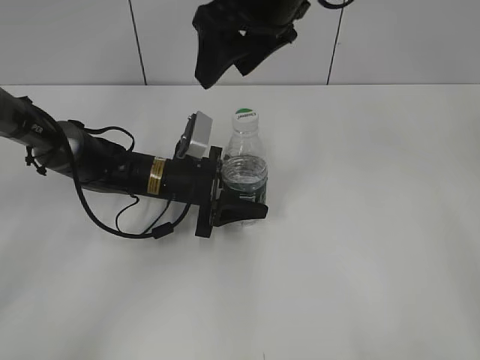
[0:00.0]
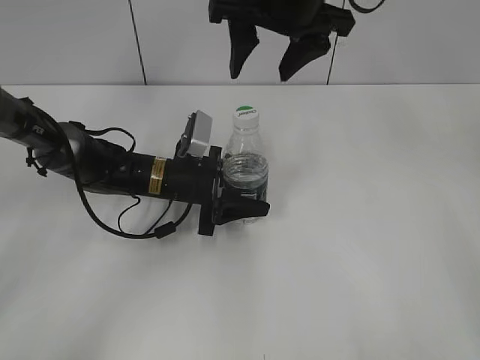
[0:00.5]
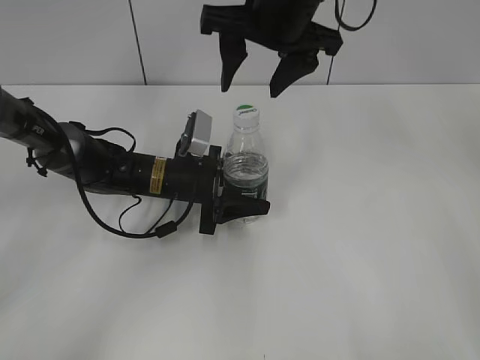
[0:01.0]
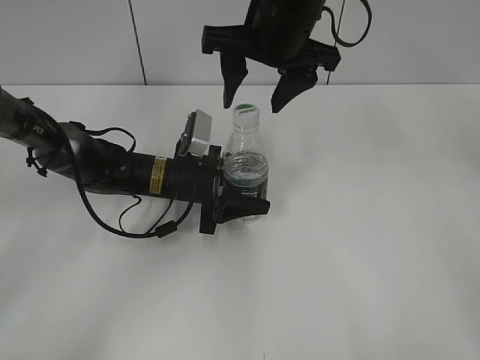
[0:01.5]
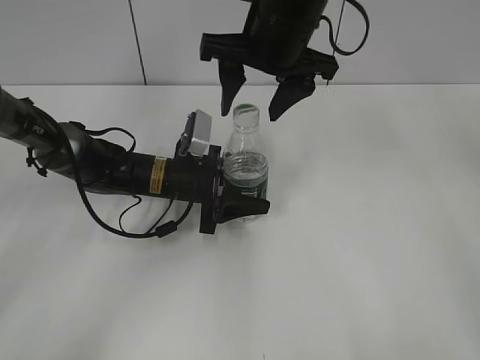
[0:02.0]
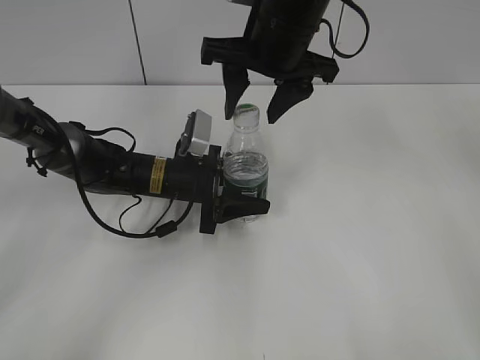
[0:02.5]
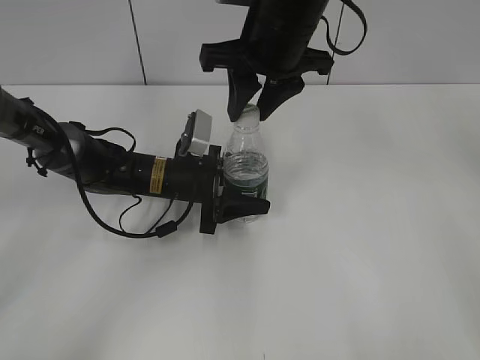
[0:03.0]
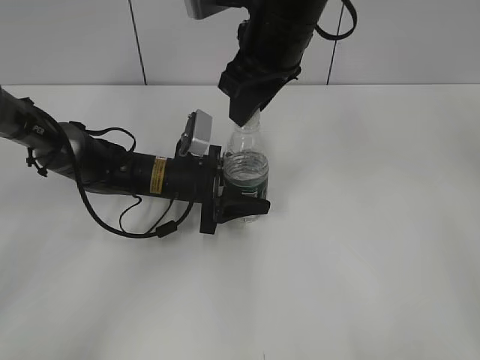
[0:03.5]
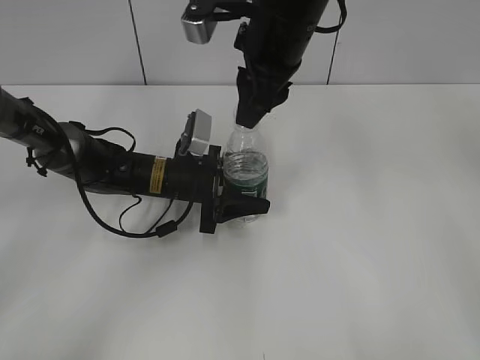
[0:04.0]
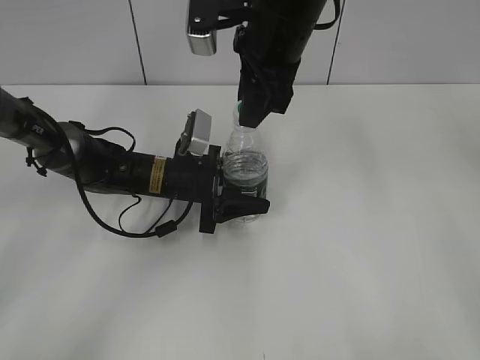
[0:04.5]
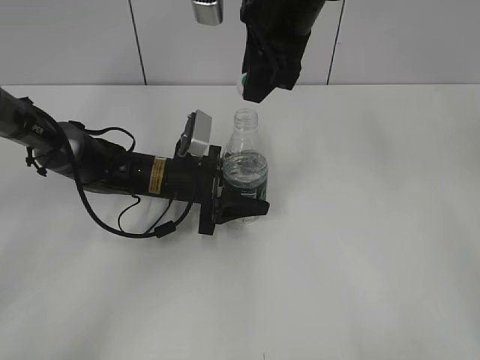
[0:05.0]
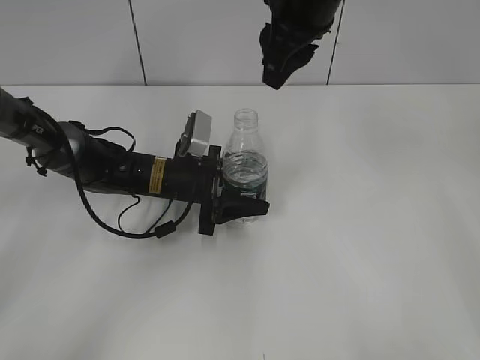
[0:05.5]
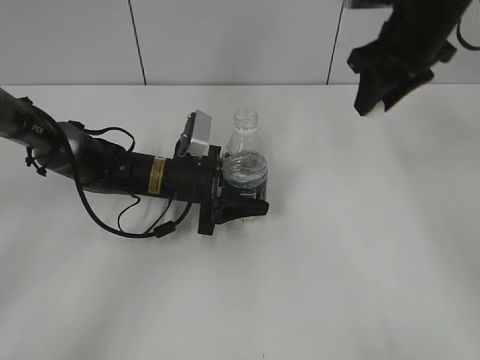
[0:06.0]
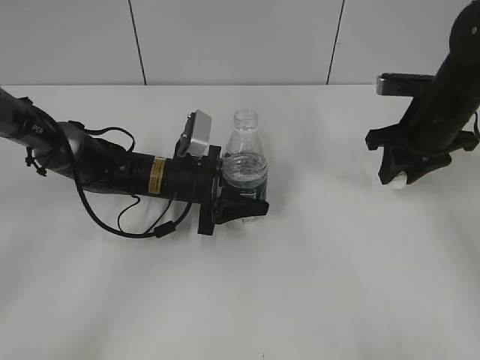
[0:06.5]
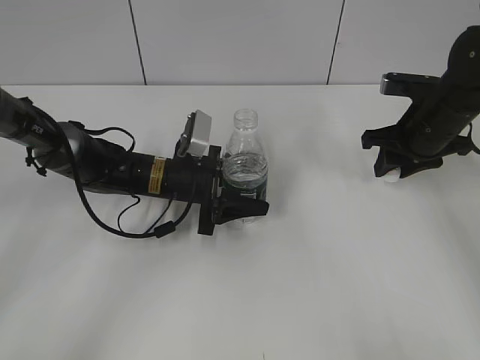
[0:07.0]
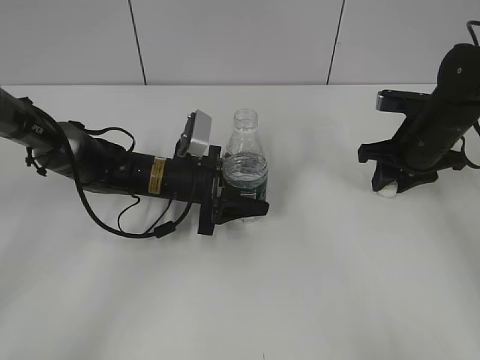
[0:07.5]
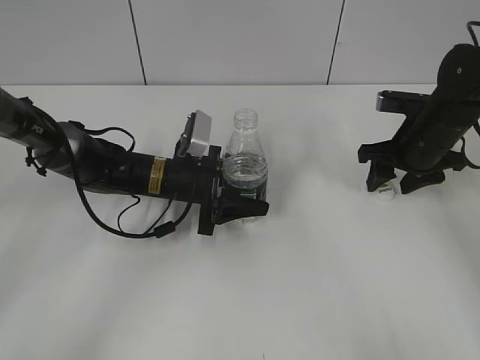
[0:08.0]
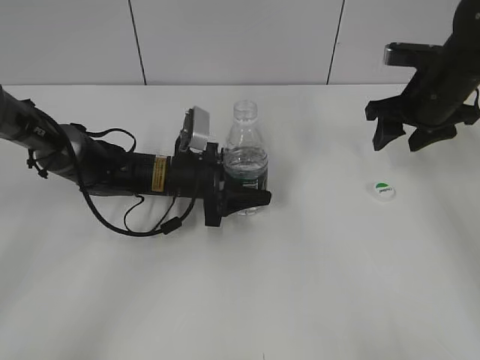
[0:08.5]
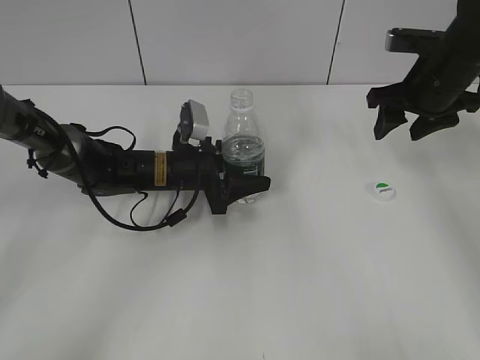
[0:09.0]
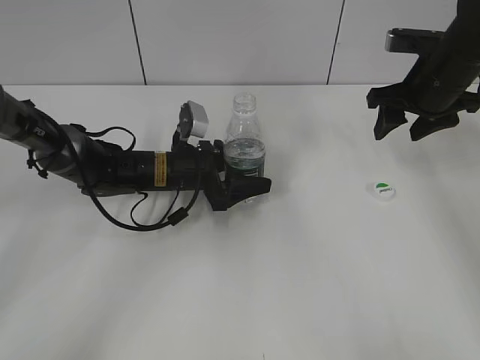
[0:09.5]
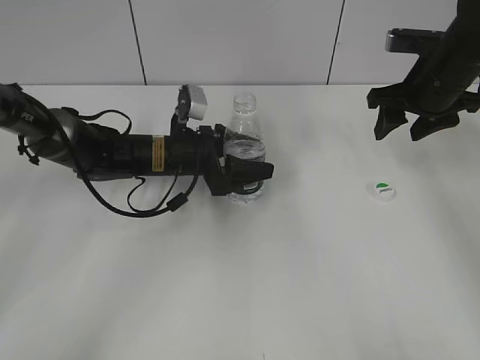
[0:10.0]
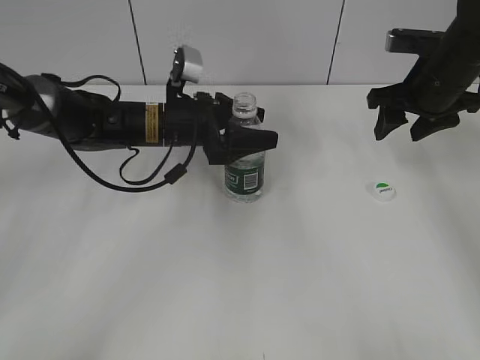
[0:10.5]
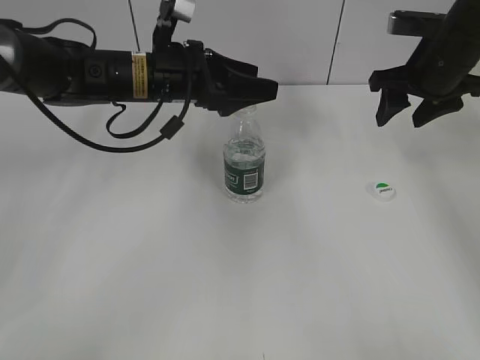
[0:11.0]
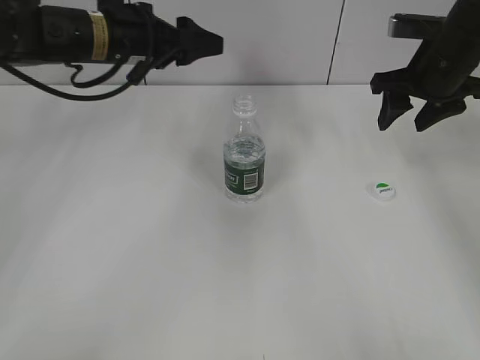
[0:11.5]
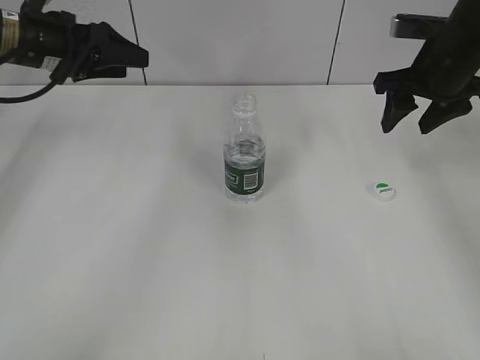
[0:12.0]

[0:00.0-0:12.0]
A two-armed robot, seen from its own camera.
Step, 0:00.0 to 0:04.5: Unscrew the bottle cap with the right gripper while holding the bottle with the left gripper.
Step, 0:05.0 to 0:08.0: Place the bottle cap on the table with the right gripper.
Step, 0:08.5 to 0:10.0: Place the bottle on the table with the left gripper.
0:02.0 to 0:04.0: The right gripper closes its fingers.
0:04.0 to 0:06.0: The right gripper is displaced to the right by roughly 15 cm.
0:06.0 to 0:08.0: The right gripper travels downward by approximately 15 cm, and opens.
0:08.0 to 0:10.0: The left gripper opens. Meanwhile the right gripper goes some 5 cm upward.
0:10.0 to 0:12.0: The left gripper shifts roughly 20 cm upward and to the left.

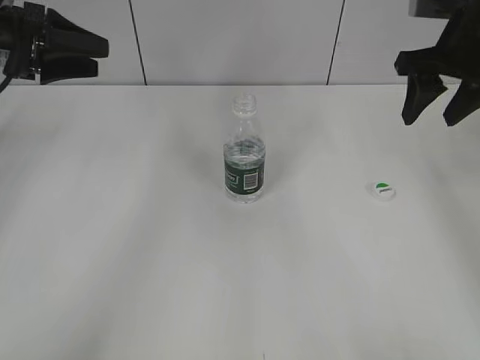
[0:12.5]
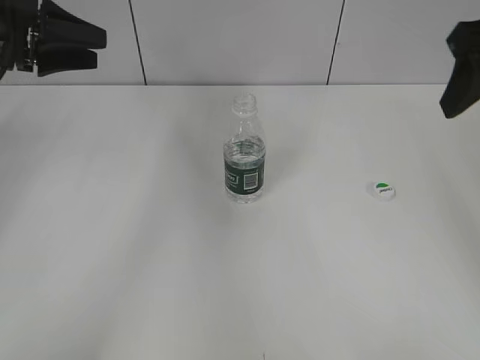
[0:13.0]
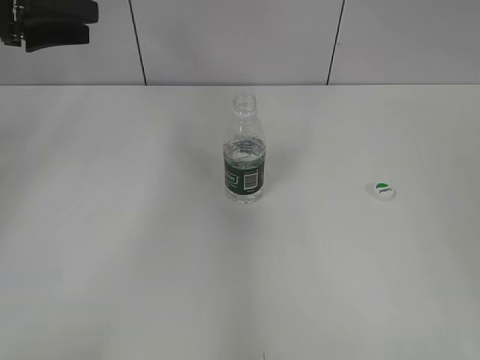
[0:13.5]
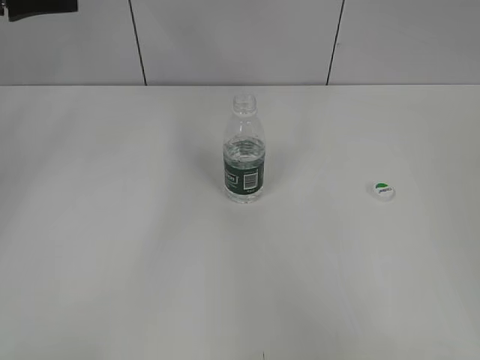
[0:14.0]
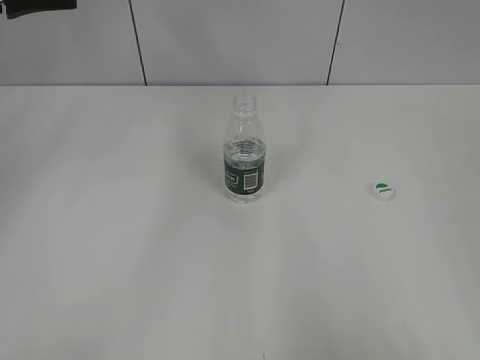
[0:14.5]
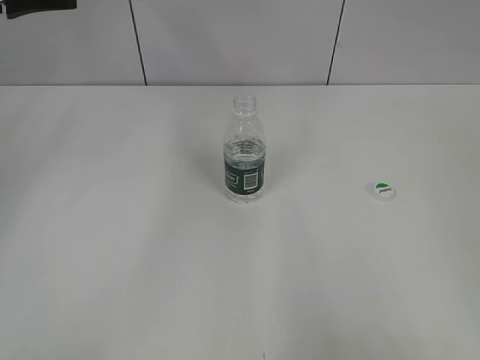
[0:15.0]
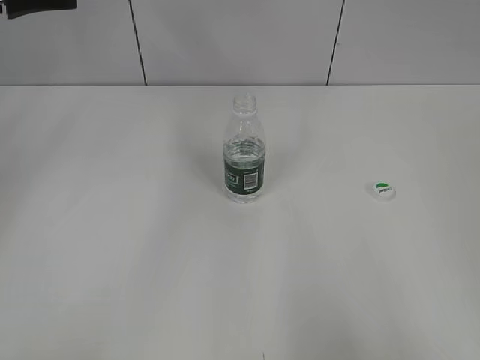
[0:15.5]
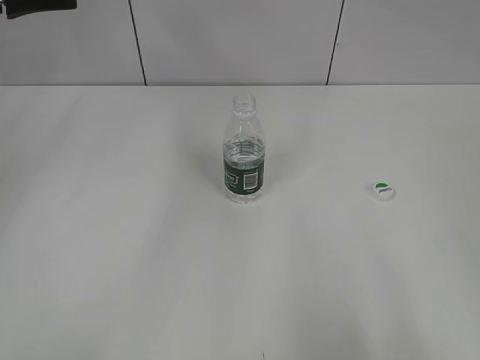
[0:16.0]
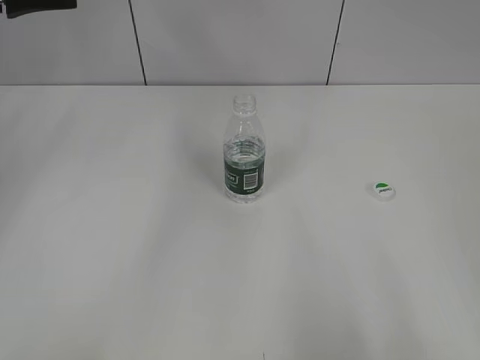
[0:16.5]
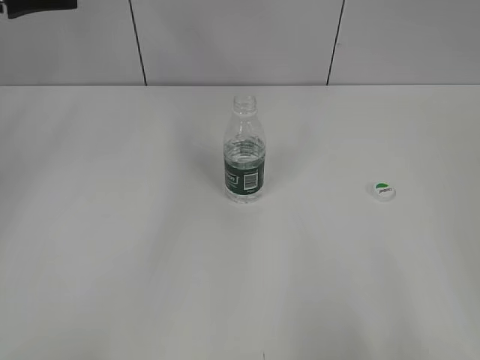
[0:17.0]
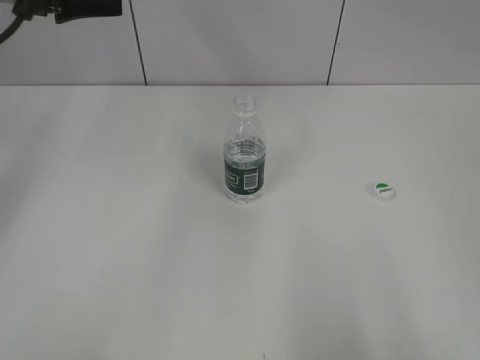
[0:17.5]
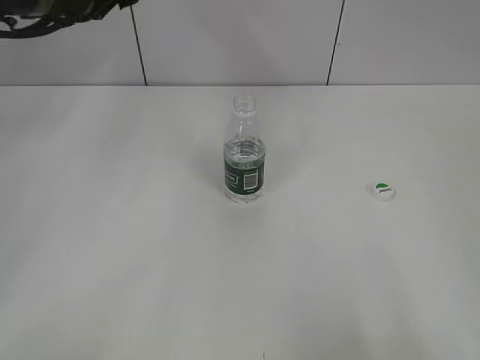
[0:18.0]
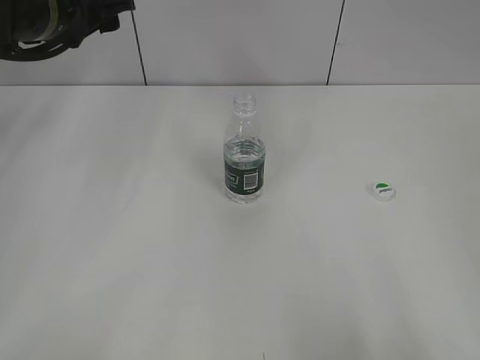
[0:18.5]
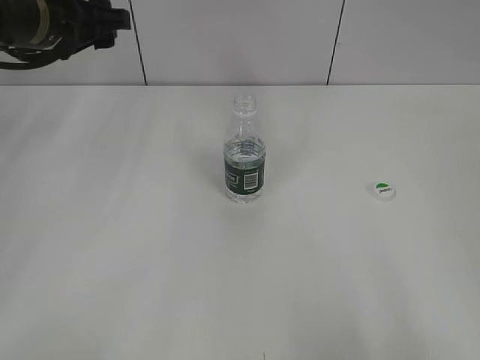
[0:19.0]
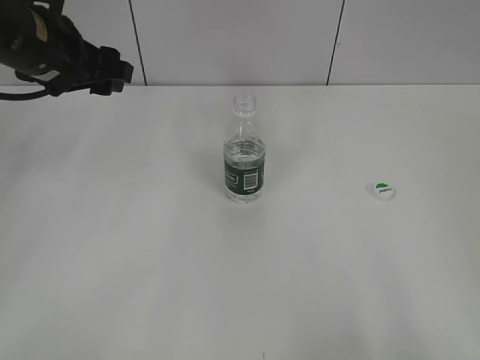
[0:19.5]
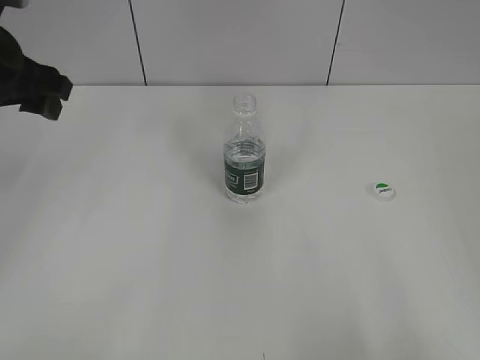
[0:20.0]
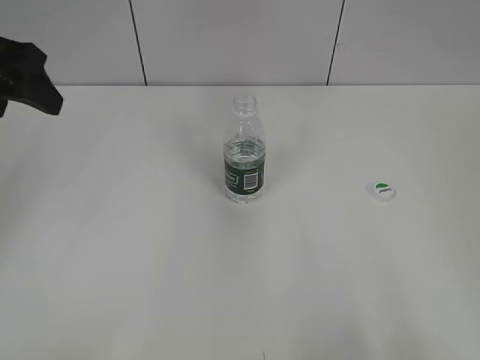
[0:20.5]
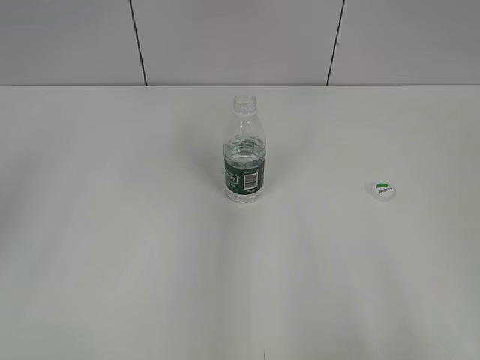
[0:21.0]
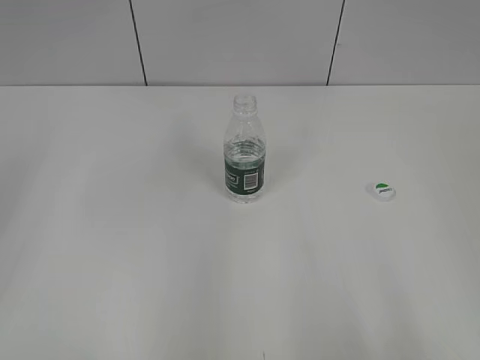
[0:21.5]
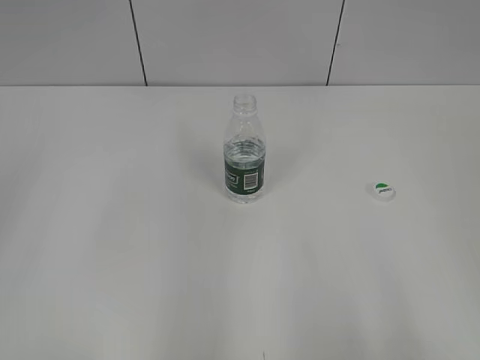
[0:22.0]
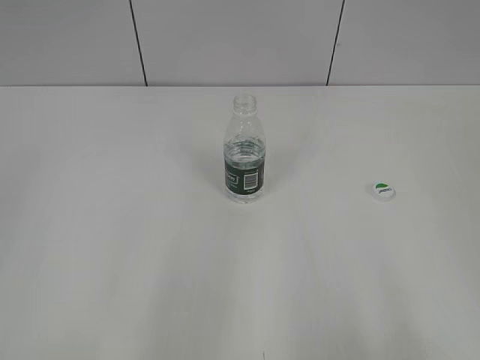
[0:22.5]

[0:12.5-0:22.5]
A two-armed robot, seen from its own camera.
0:12.5 to 0:14.5: The left gripper moves upward, about 10 cm. Meanwhile the right gripper heads backward, covering roughly 40 cm.
0:16.5 to 0:18.5: The left gripper moves to the right, some 10 cm.
0:18.5 to 0:20.5: The left gripper moves backward and to the left, roughly 10 cm.
0:20.5 to 0:22.5: The left gripper shifts roughly 30 cm backward.

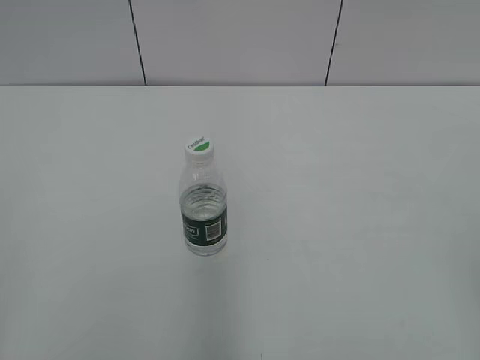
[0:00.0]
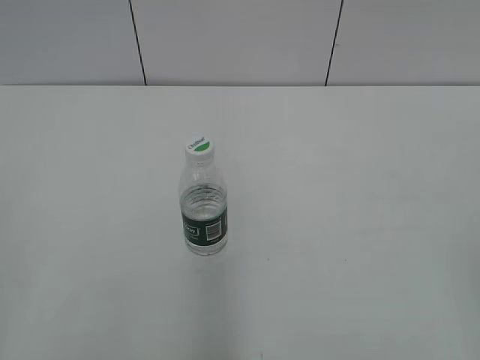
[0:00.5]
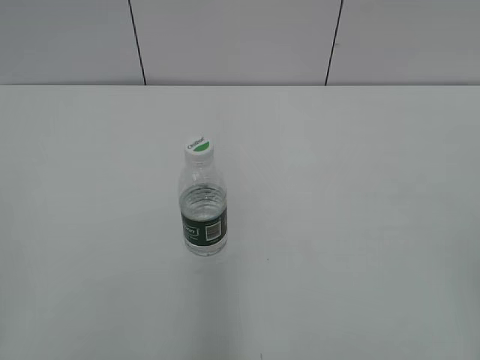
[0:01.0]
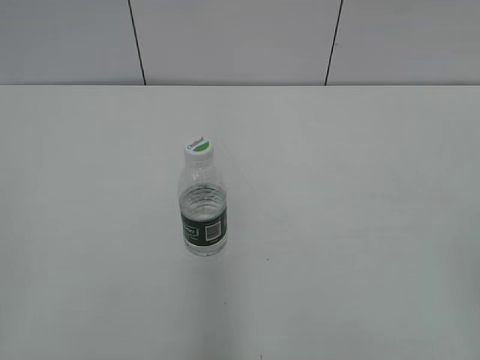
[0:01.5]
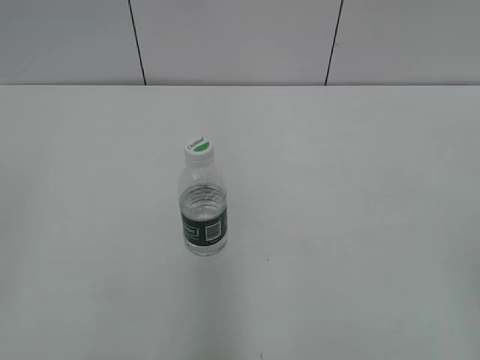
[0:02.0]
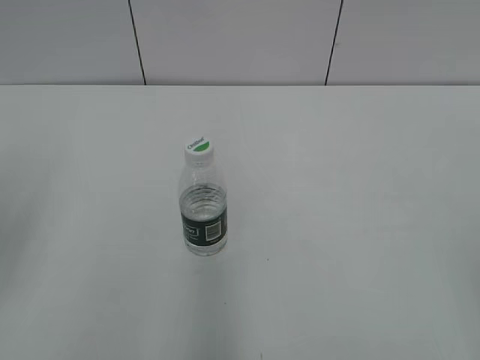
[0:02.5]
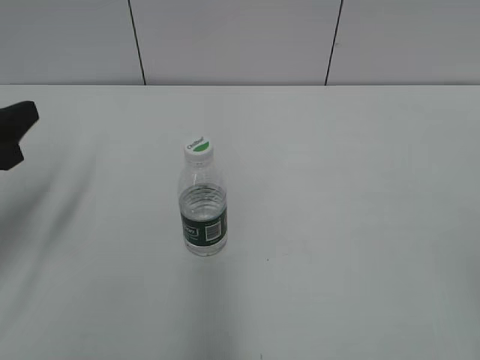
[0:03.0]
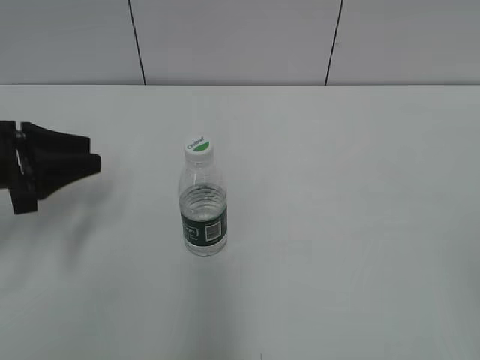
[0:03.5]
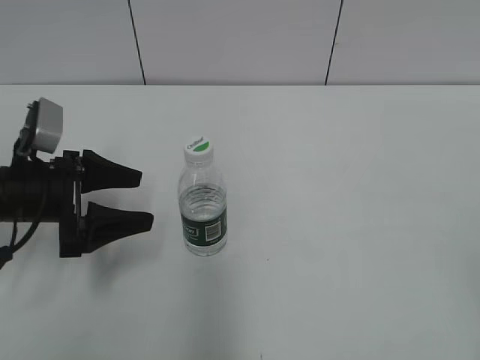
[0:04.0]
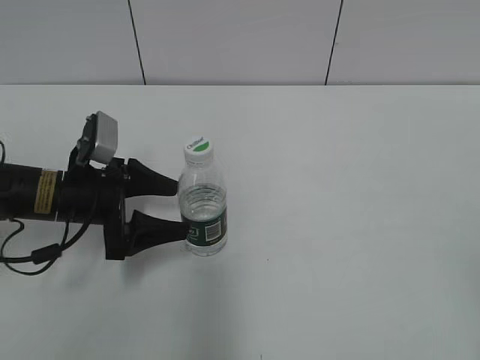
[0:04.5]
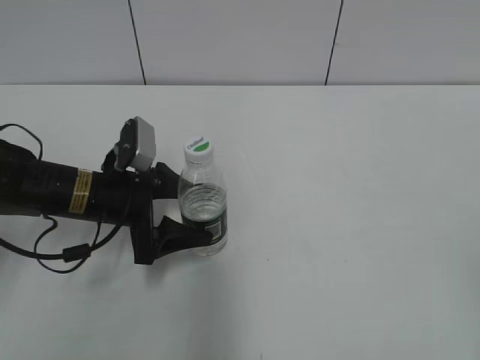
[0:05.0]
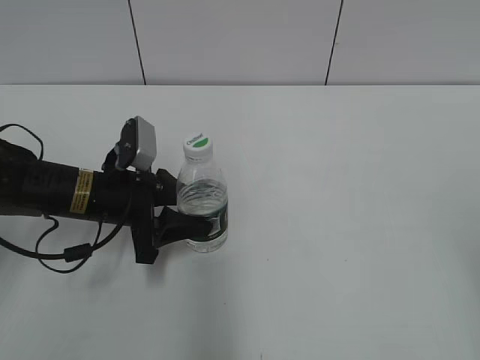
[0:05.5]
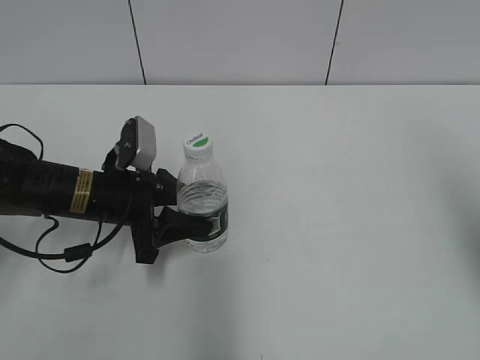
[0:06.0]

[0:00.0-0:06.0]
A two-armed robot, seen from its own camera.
Step, 0:00.0 to 0:06.0: Grasp the bottle and move it to the center of the table with the left gripper.
0:02.0 to 0:04.0: The left gripper heads forward and downward, covering about 35 cm, and opens up.
0:04.0 to 0:06.0: The right gripper moves forward and upward, some 20 cm, and closes, while the left gripper travels to the right by approximately 5 cm, and closes.
